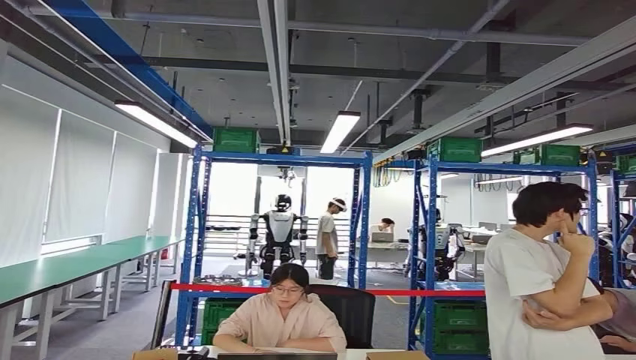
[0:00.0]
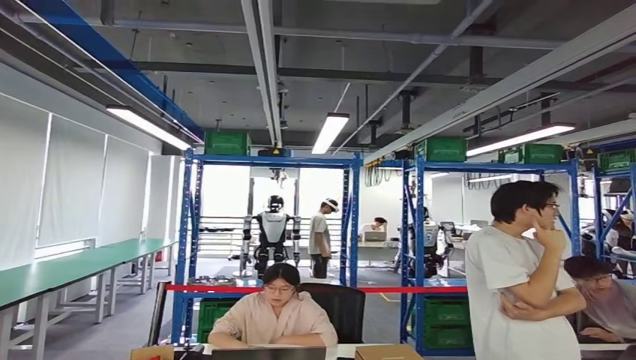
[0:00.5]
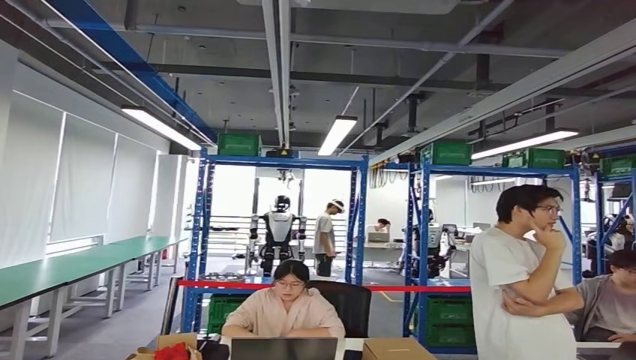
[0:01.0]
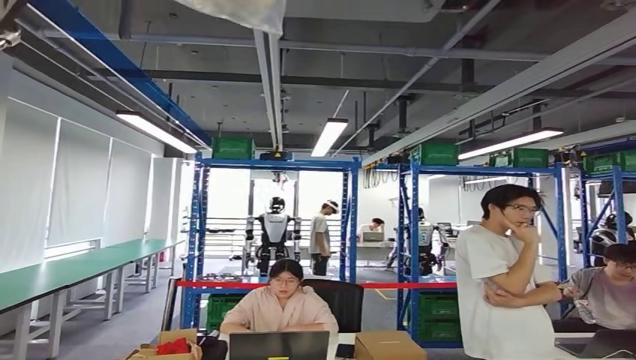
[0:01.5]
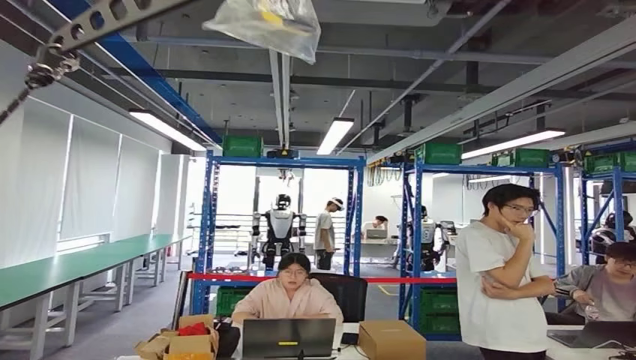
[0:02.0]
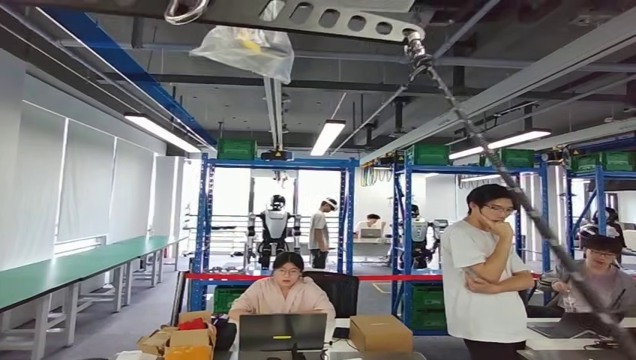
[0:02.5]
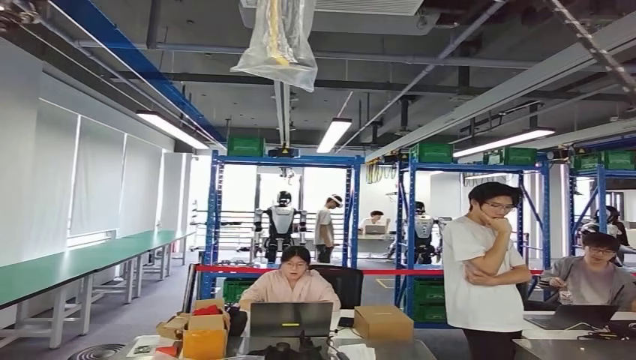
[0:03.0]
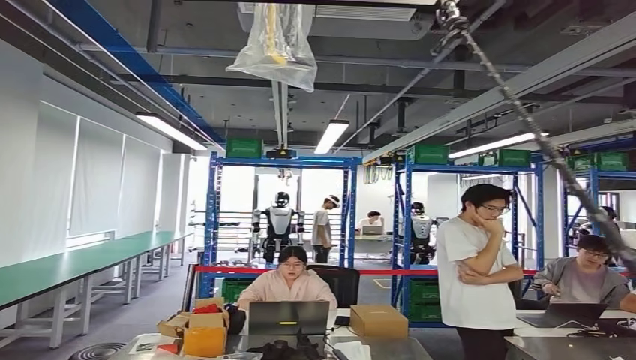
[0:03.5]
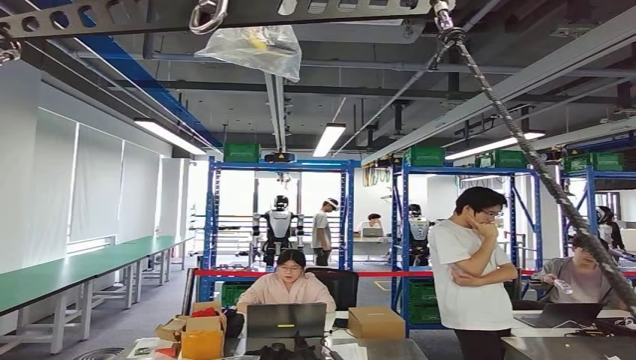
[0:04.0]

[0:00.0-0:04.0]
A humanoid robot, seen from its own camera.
Step, 0:00.5 to 0:04.0: Move to the initial position of the workbench.
